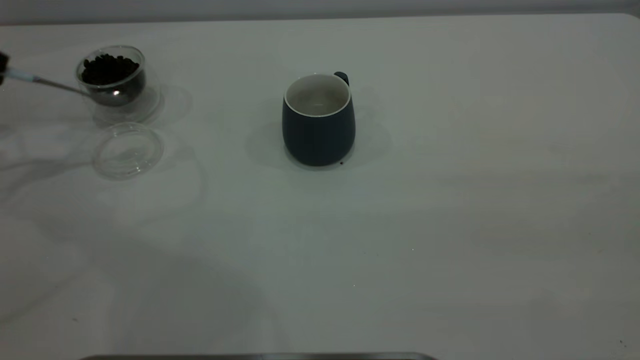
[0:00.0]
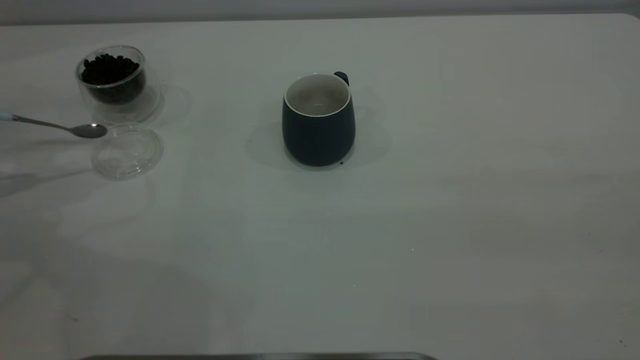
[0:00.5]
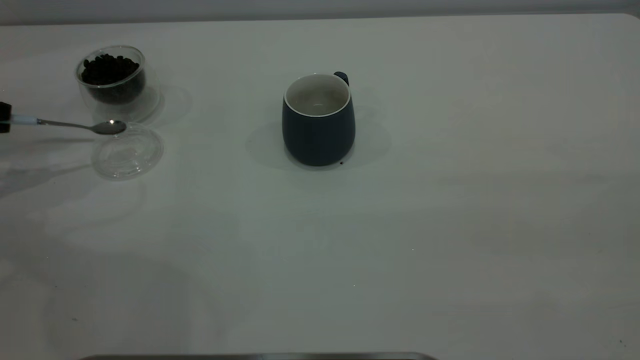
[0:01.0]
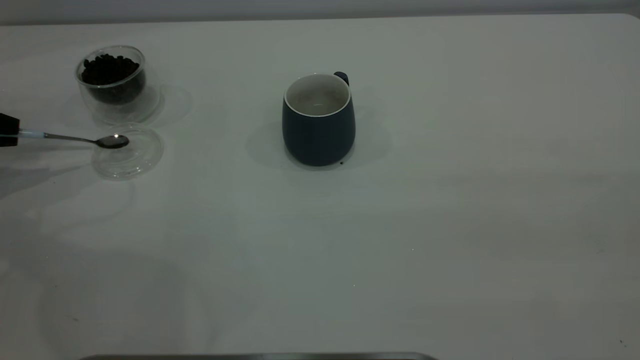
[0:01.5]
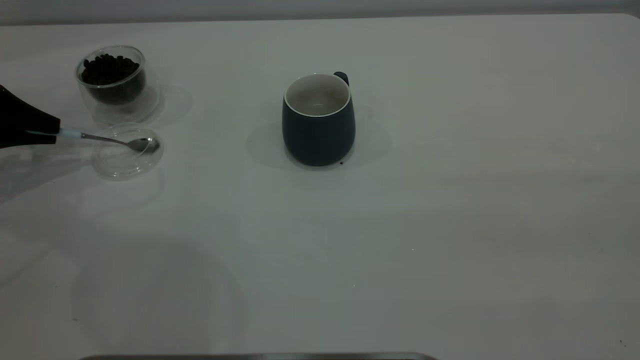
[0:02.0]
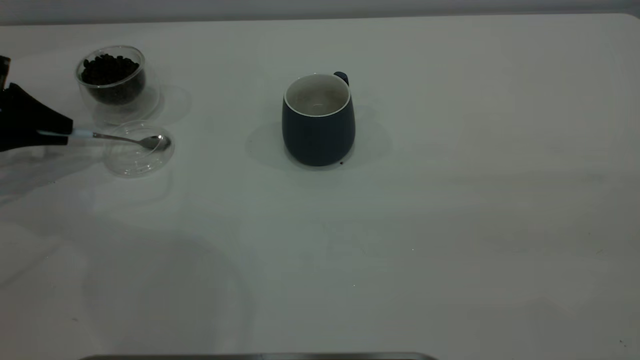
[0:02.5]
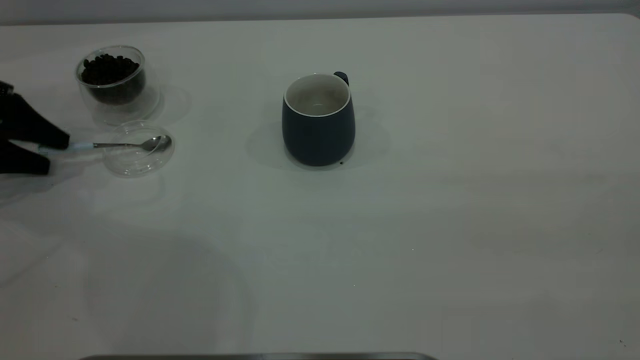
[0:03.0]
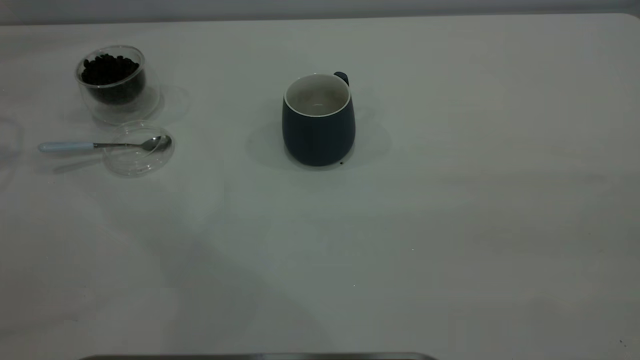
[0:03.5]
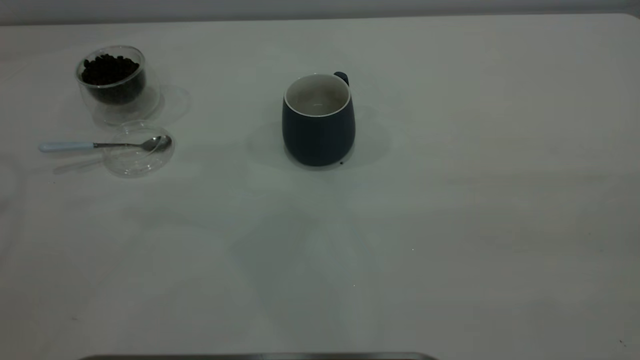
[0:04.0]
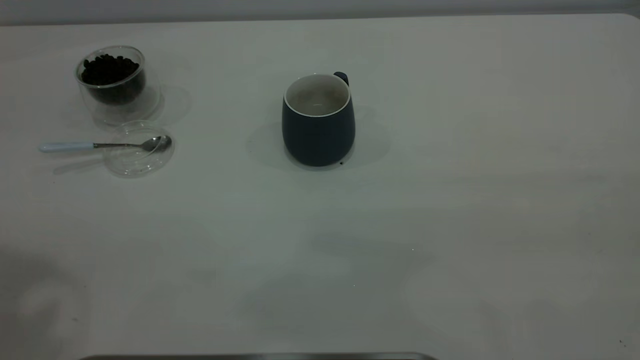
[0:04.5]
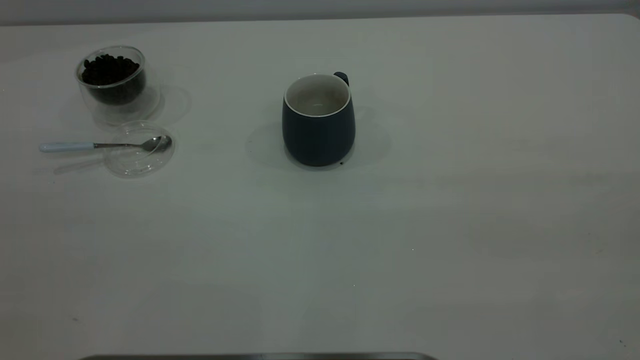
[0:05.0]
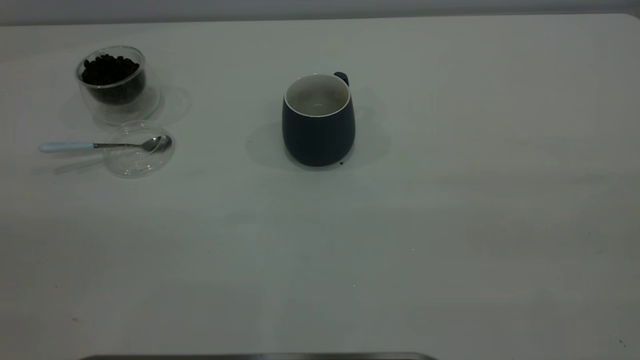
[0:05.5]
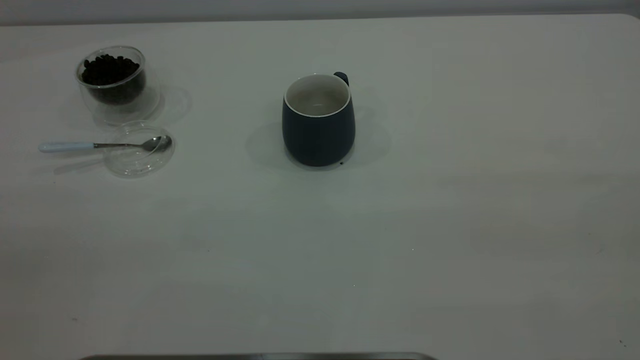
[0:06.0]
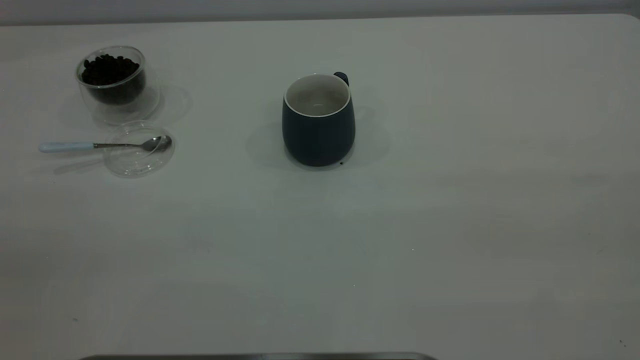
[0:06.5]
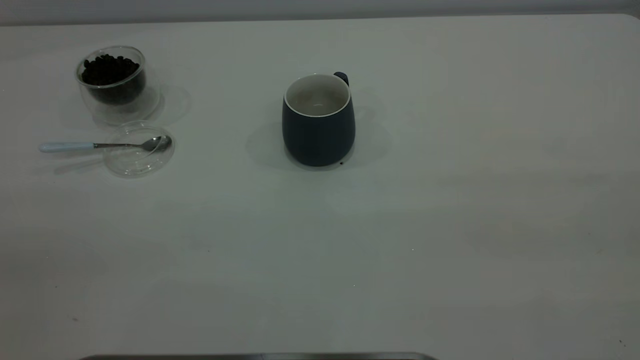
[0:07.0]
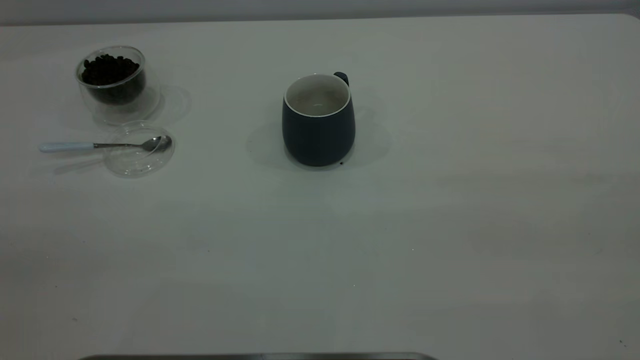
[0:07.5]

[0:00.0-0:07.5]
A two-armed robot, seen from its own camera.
Task of the whole recording: the right gripper place the grey cup in the center of the table, the left gripper take the blue spoon from the cup lid and scoop out the coffee beans from the coffee cup and put them into the grey cup, the left gripper put the spoon back into the cup lid.
Step, 0:00.0 to 0:03.0: Place the spoon back in its original place.
0:00.0 to 0:02.0: The left gripper heads downward, covering approximately 10 cm.
0:02.0 to 0:04.0: The left gripper shifts some 35 cm upward, and opens up.
